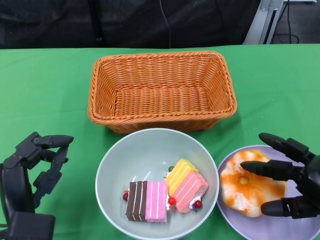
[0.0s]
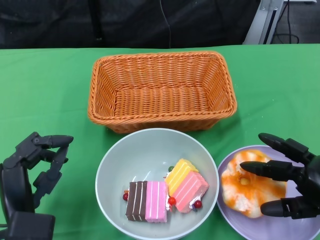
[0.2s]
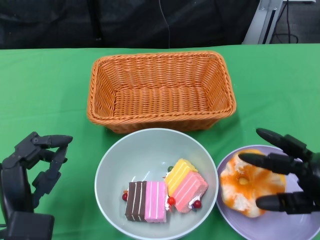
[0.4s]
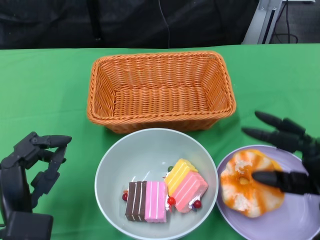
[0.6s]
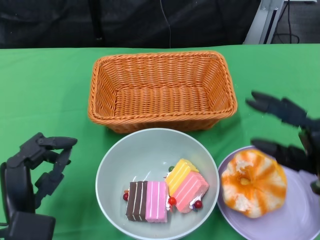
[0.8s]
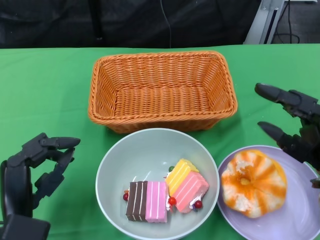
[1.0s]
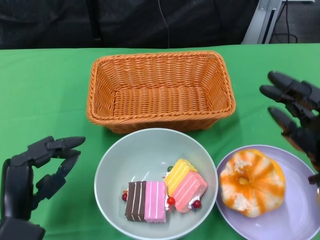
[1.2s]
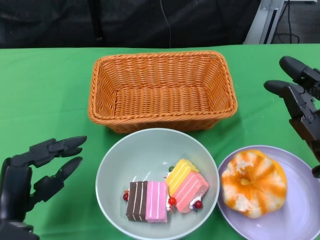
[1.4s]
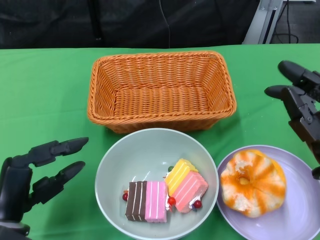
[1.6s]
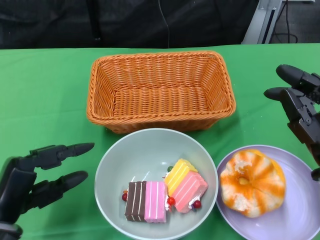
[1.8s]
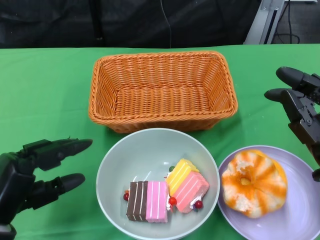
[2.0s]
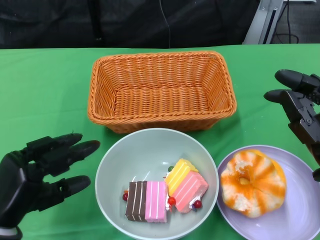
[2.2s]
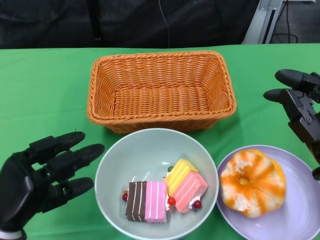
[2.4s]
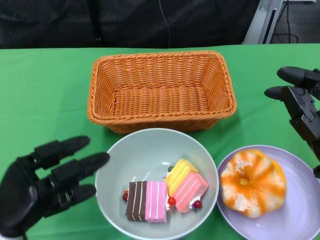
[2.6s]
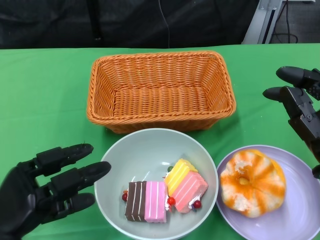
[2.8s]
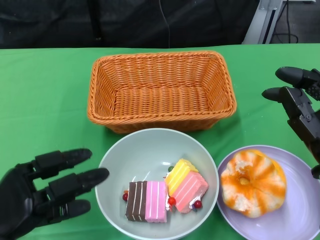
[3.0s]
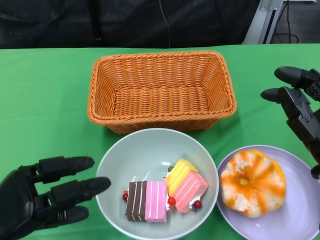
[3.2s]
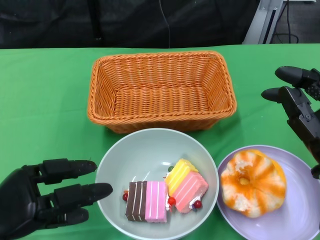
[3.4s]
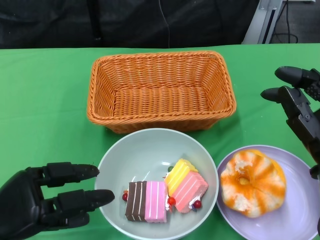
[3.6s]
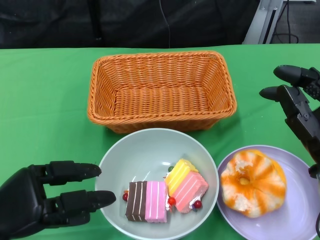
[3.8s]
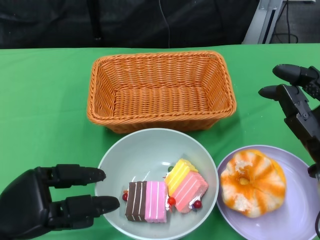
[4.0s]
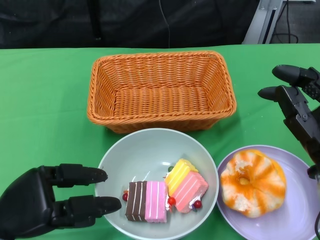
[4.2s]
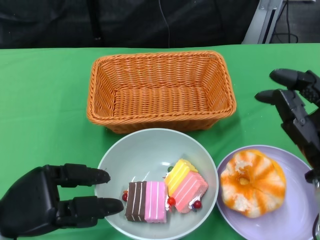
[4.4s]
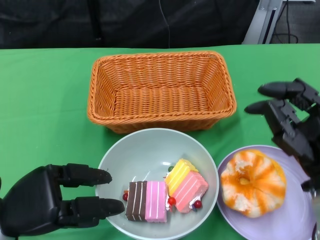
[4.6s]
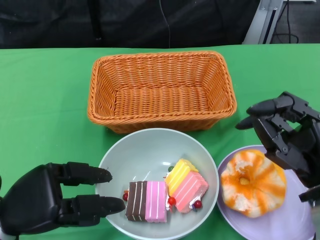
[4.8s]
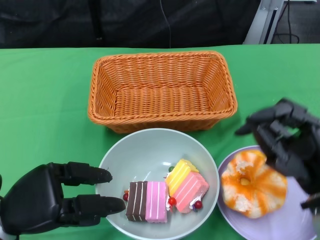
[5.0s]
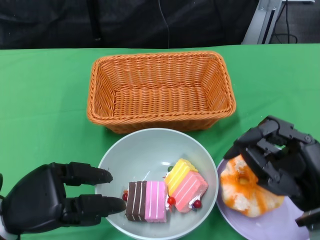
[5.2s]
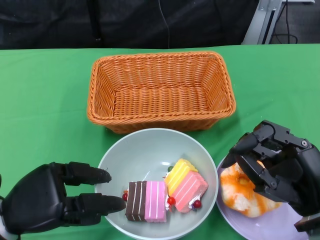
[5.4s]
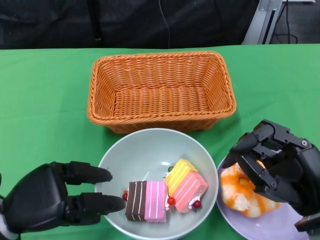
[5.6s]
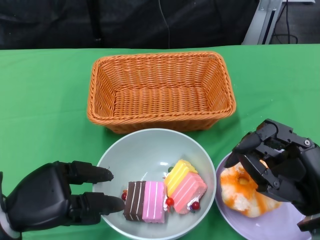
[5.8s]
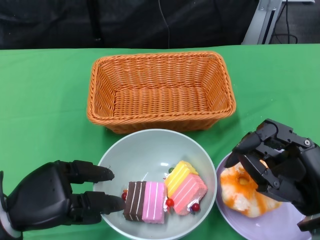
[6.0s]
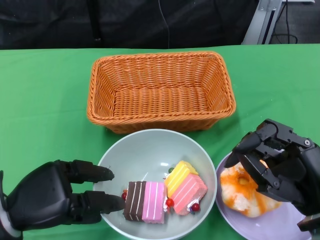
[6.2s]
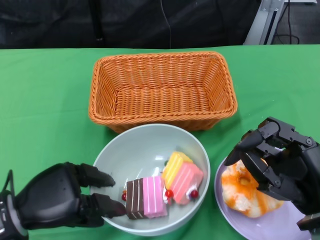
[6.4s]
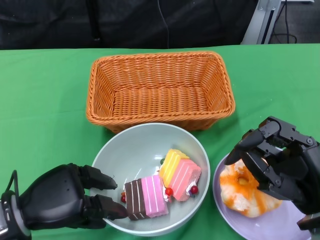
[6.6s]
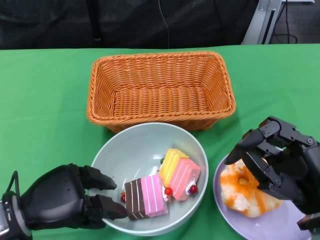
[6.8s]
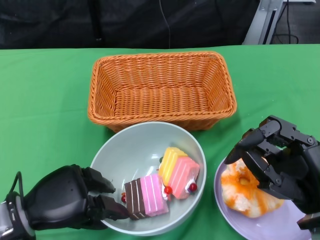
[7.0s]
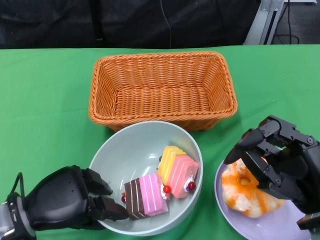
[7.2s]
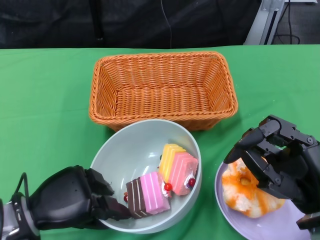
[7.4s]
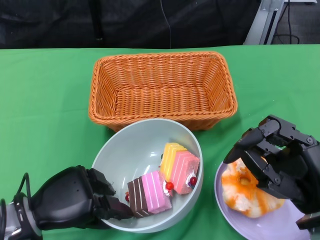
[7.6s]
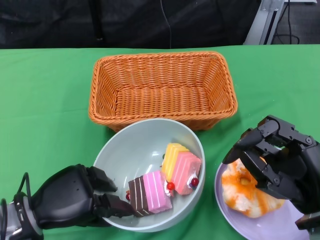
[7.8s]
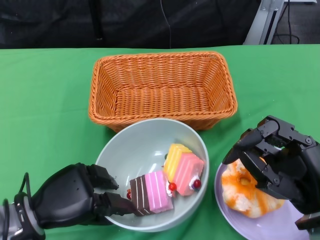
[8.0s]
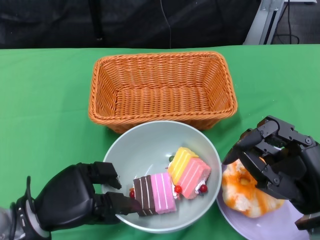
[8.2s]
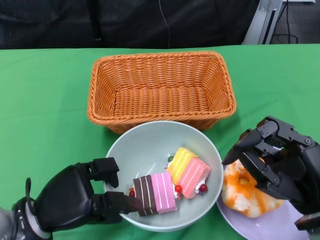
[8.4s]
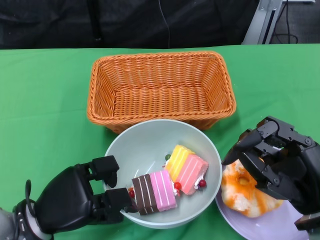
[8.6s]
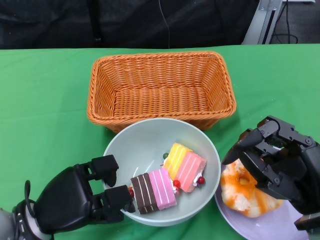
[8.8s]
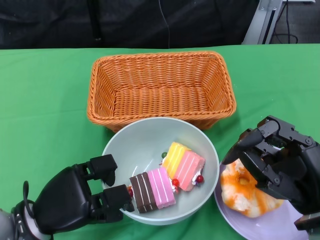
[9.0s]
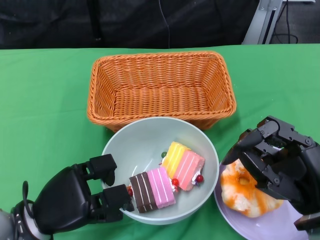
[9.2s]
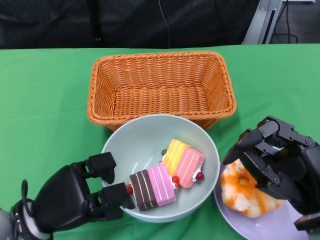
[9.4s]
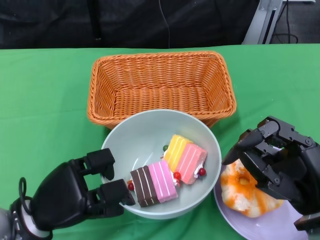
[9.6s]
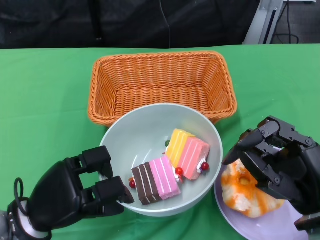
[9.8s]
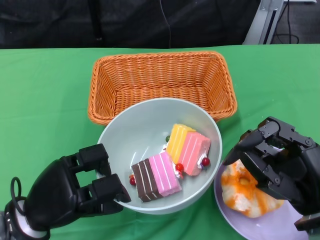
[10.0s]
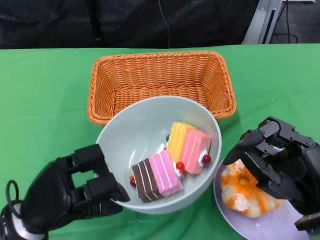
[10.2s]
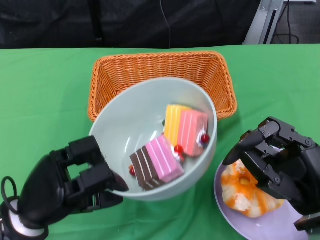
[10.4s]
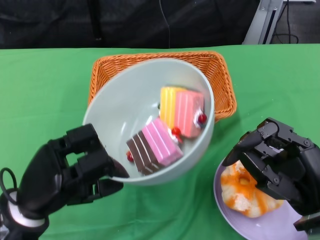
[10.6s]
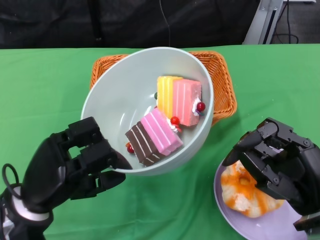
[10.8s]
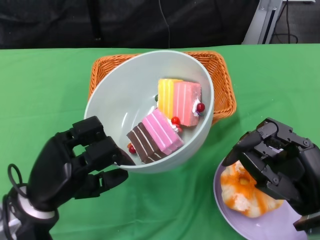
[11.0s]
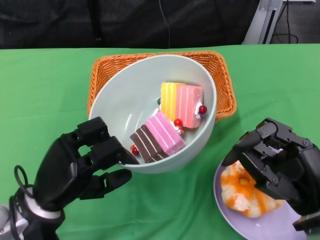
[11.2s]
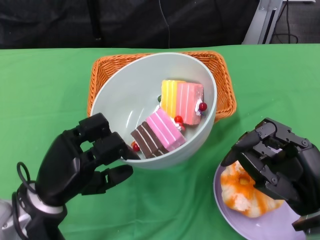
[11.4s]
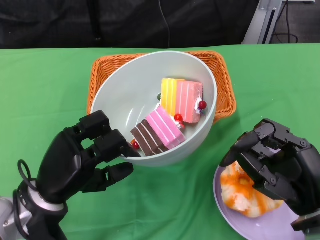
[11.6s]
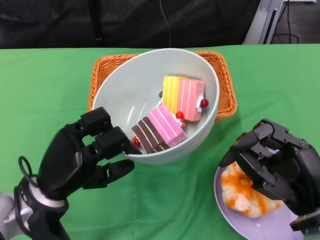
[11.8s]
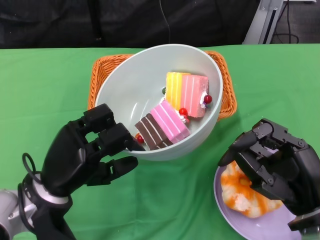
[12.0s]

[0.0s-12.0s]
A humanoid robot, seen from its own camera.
Step, 1.0s to 8.0s: Grasp the bowl with the left gripper.
0.0s to 1.6s: The right hand travels upward by approximately 5 cm.
4.4s to 6.0s: The right hand moves backward, approximately 5 cm.
7.6s to 9.0s: The hands stay close to where they were, moving slightly.

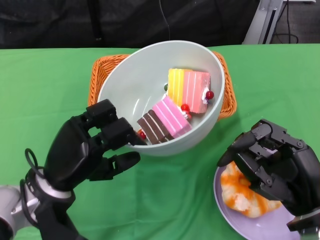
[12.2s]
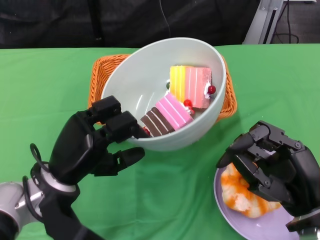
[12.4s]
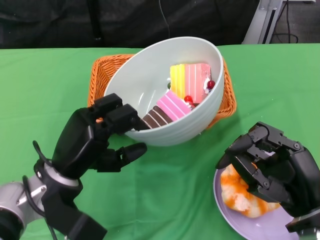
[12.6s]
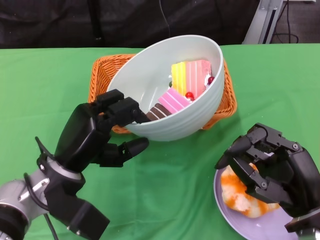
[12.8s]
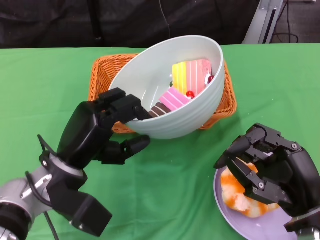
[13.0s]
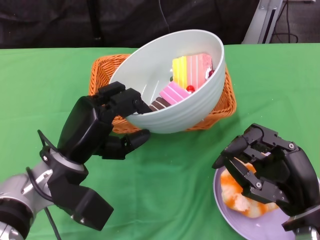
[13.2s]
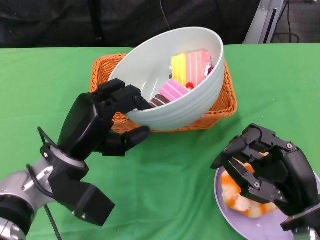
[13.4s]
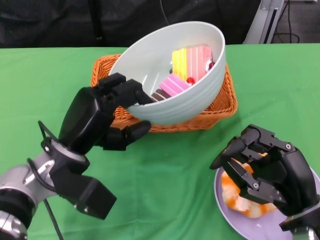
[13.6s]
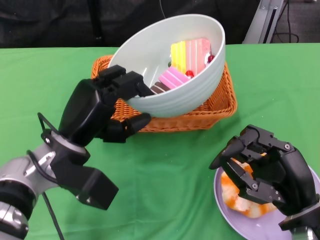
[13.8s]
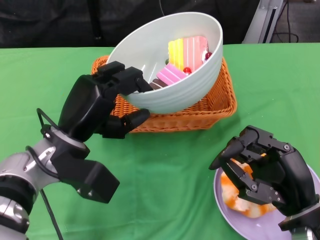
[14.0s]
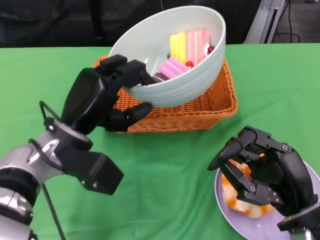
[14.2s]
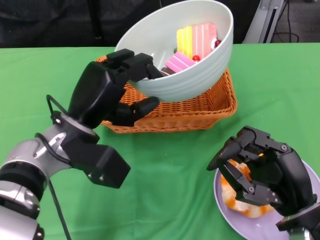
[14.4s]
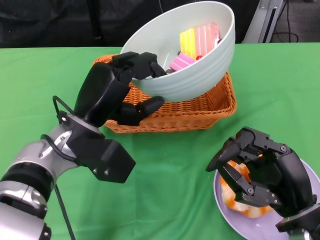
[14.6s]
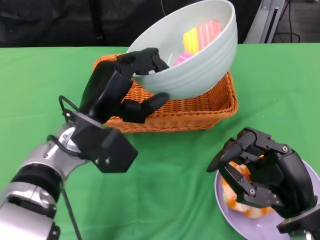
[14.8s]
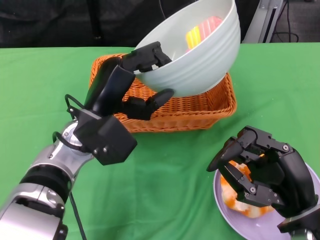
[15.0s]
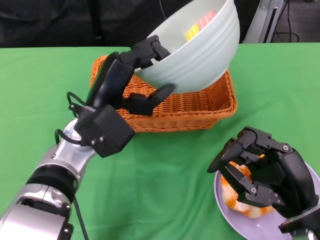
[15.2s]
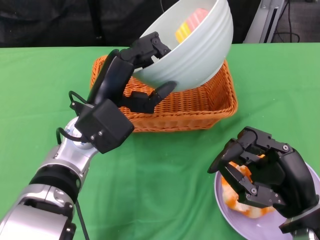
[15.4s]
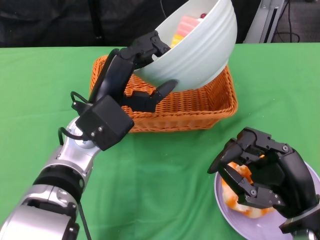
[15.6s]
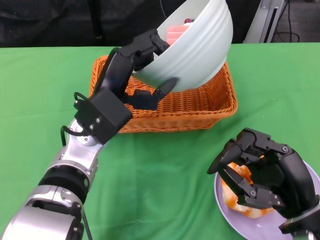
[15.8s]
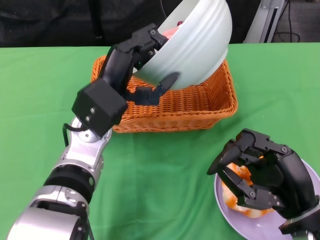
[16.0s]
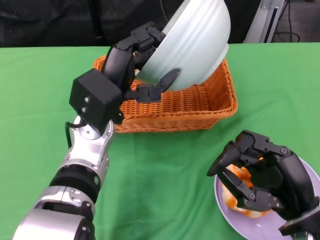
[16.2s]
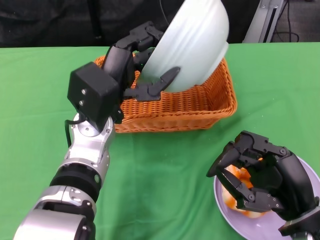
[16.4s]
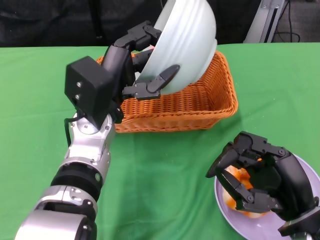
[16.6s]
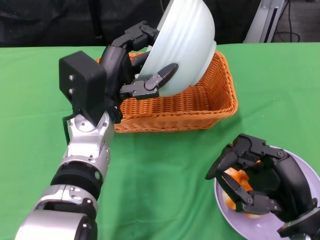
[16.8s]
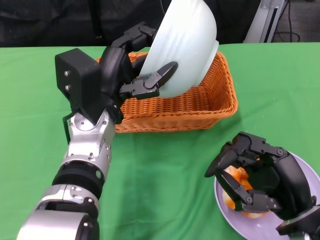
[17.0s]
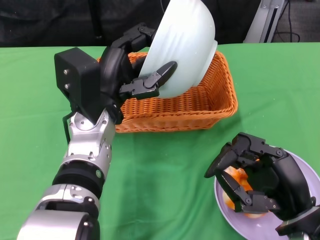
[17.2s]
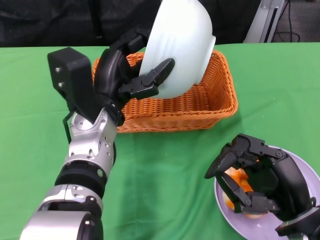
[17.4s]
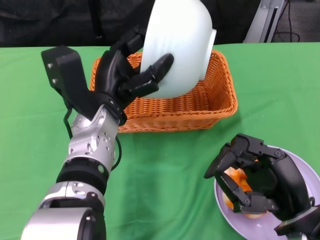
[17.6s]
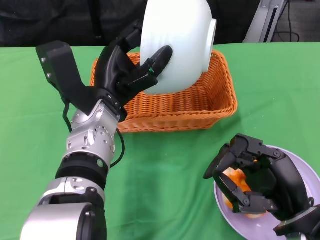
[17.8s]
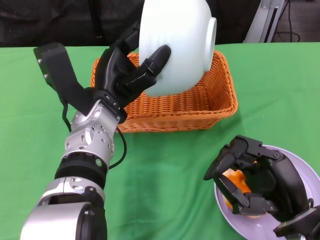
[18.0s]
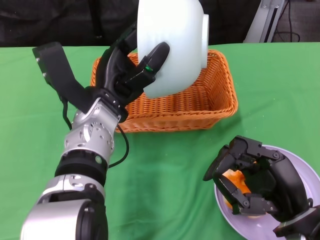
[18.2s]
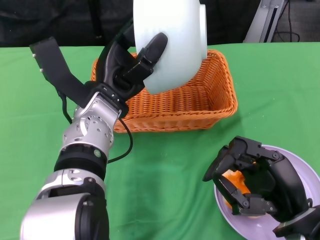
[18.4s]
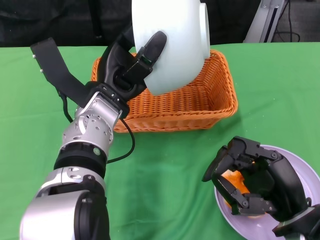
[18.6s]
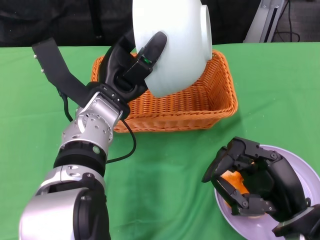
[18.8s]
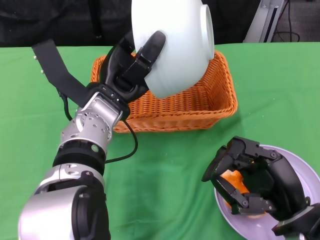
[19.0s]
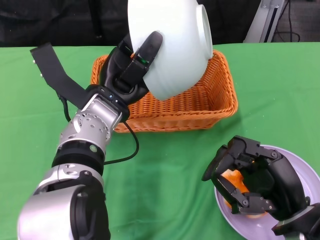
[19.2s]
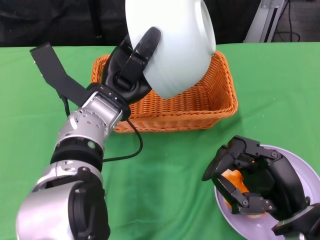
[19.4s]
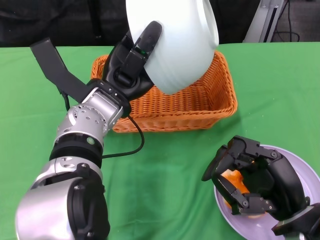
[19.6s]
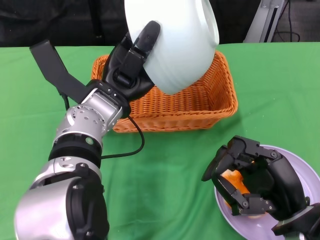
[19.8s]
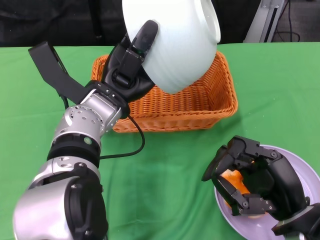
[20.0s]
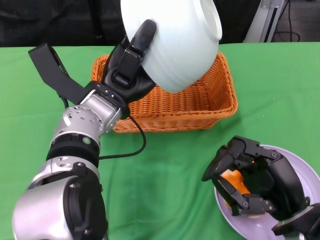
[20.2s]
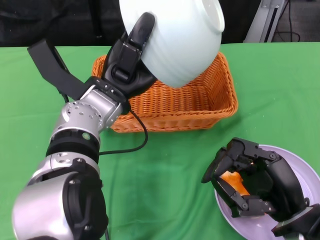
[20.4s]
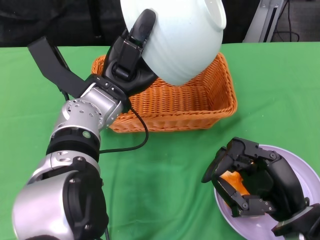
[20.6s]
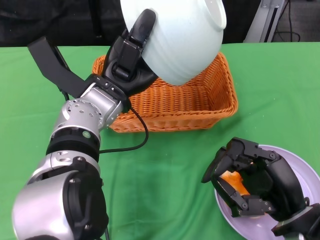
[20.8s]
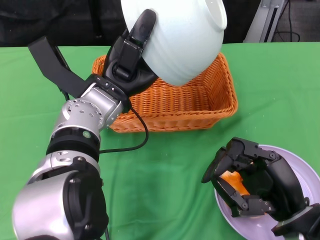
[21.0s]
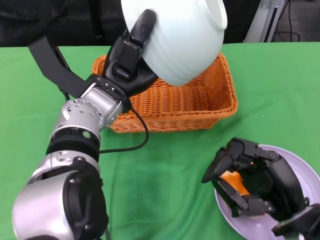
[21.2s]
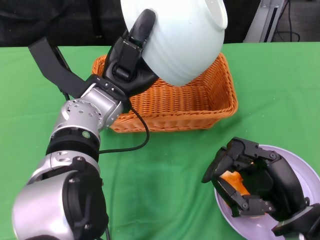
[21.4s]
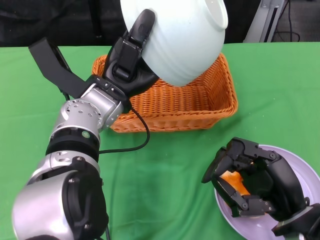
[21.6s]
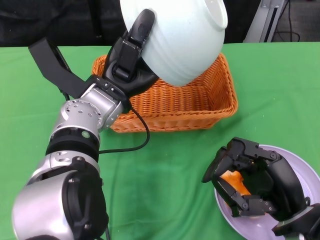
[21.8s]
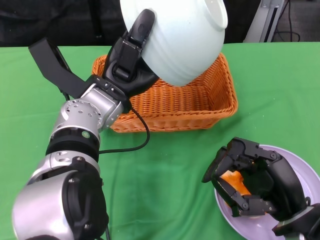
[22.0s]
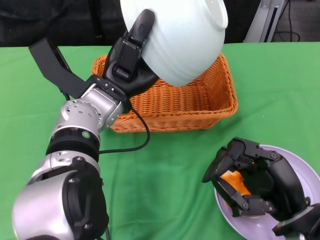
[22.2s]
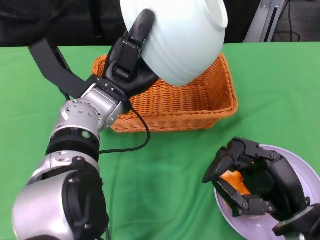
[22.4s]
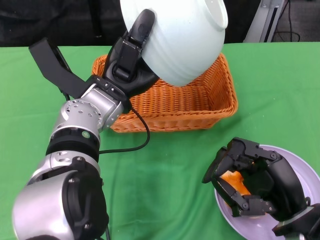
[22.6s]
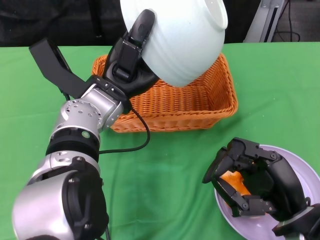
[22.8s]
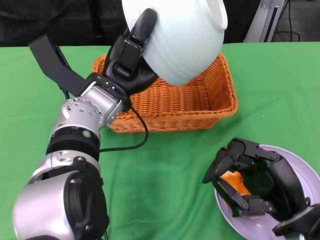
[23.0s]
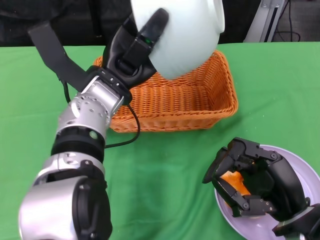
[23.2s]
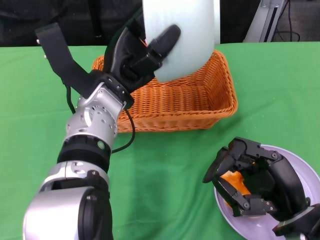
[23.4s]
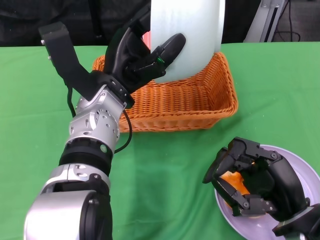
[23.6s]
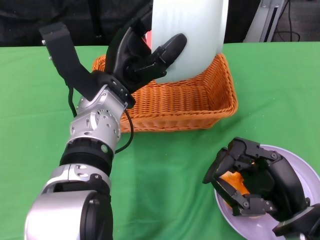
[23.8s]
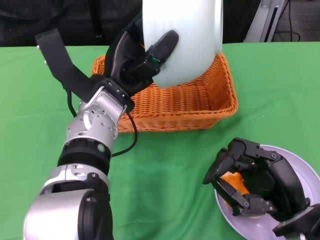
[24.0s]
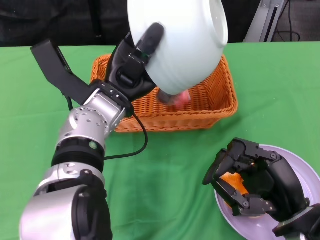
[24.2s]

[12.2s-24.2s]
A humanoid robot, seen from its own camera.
12.2s to 13.8s: The left hand changes place by approximately 5 cm.
13.8s to 15.2s: The left hand shifts by some 5 cm.
19.8s to 21.2s: The hands stay close to where they were, moving slightly.
21.2s to 22.6s: The two hands keep their place.
